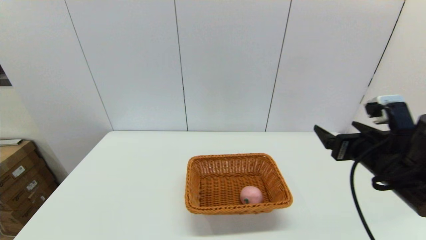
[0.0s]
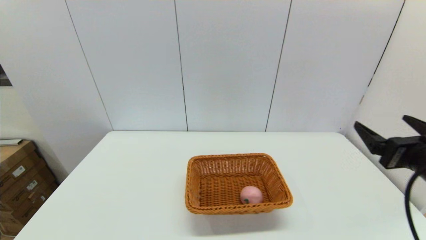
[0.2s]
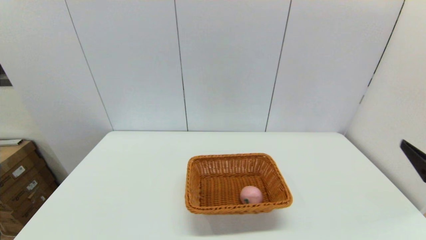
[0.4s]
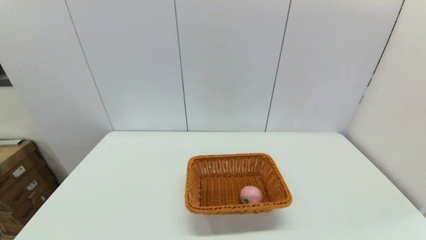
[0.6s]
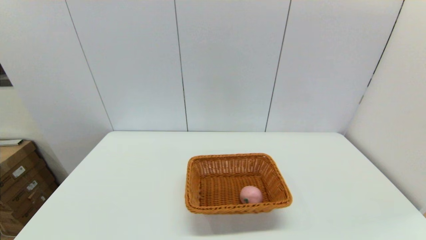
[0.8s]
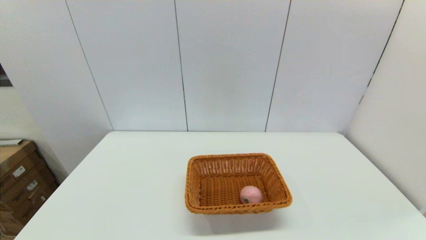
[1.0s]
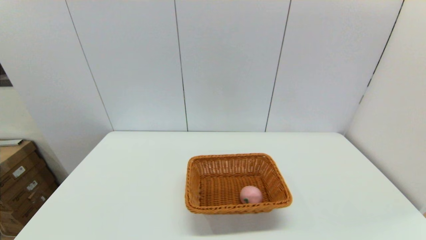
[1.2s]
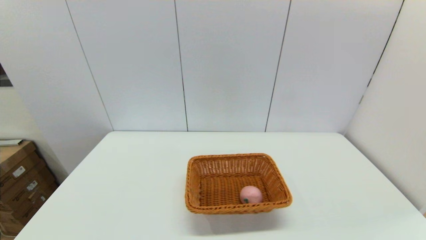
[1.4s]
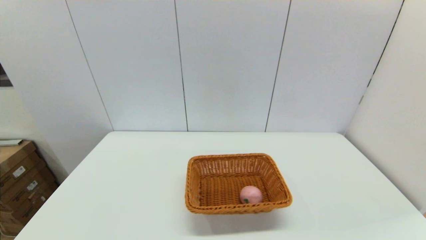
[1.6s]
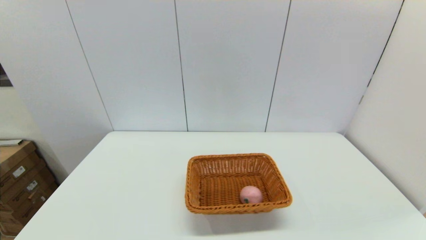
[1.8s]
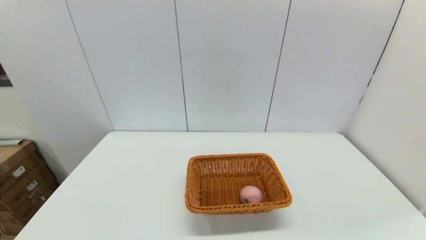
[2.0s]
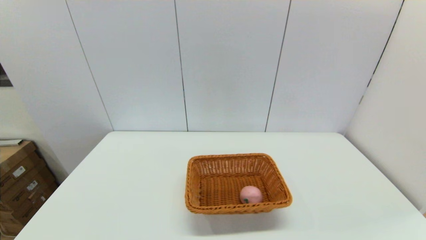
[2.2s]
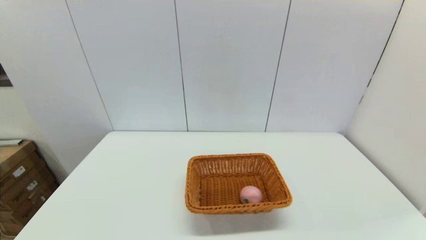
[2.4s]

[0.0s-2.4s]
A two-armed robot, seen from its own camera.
0.0s to 1.2s: The right gripper is displaced backward by roughly 25 cm.
